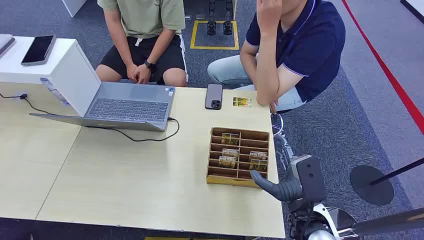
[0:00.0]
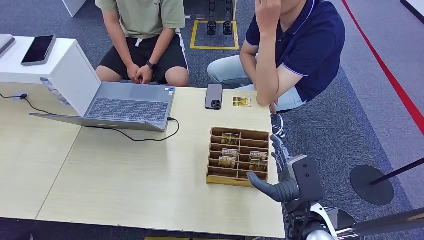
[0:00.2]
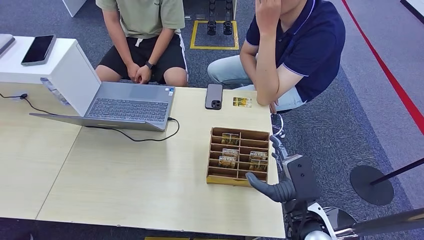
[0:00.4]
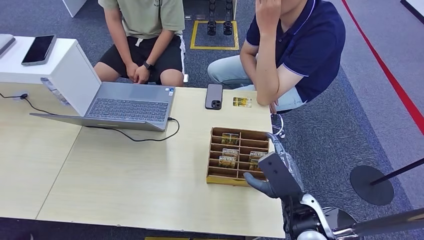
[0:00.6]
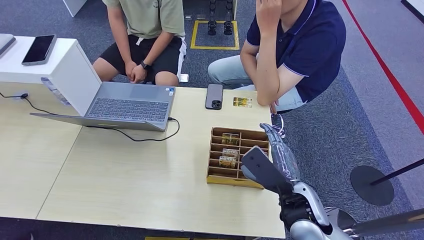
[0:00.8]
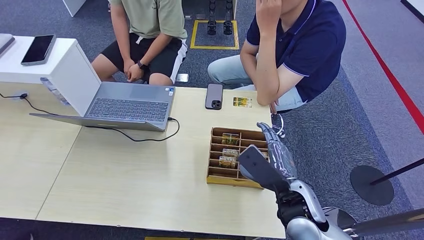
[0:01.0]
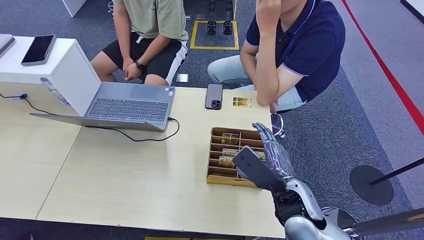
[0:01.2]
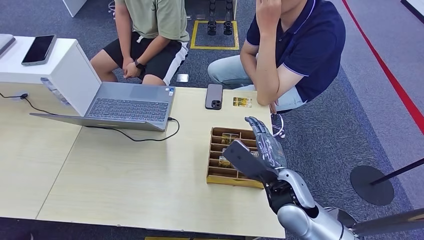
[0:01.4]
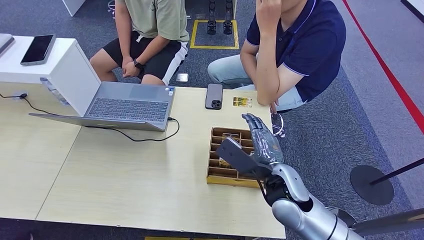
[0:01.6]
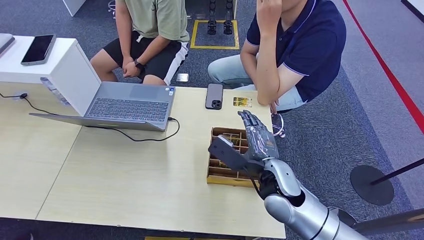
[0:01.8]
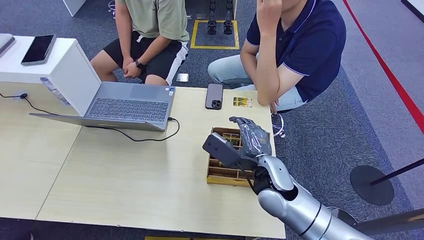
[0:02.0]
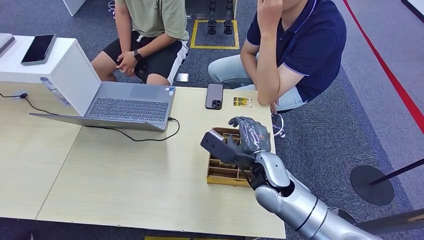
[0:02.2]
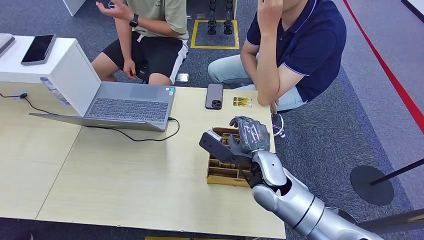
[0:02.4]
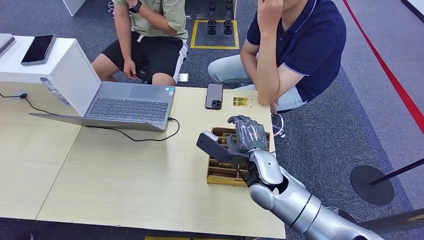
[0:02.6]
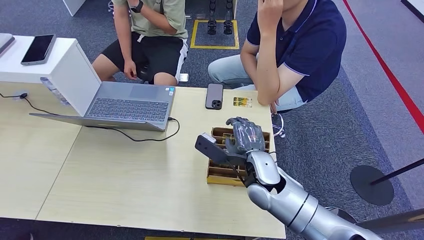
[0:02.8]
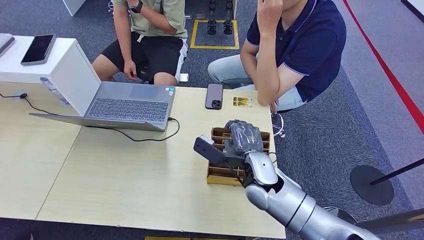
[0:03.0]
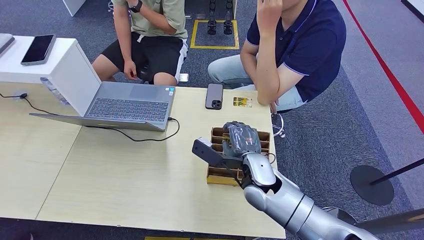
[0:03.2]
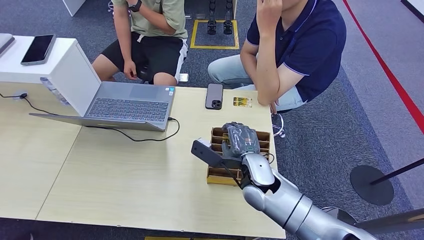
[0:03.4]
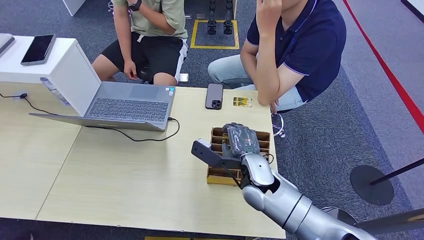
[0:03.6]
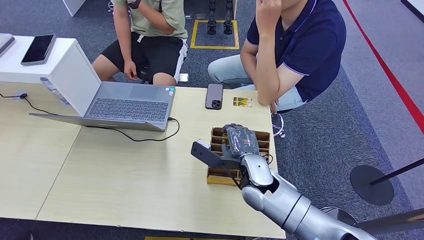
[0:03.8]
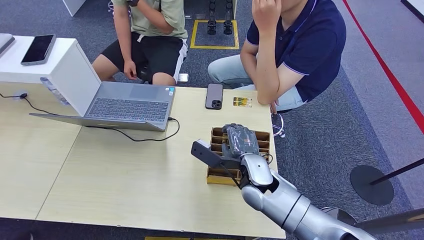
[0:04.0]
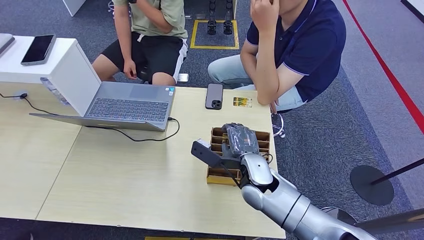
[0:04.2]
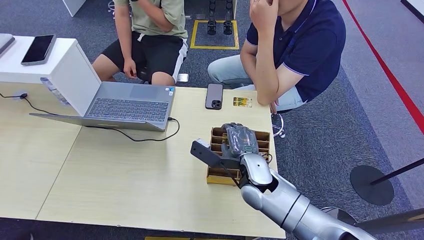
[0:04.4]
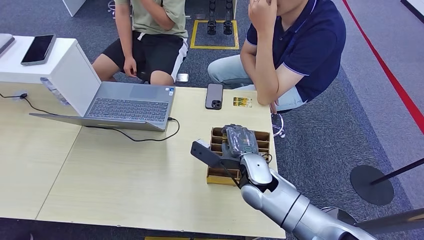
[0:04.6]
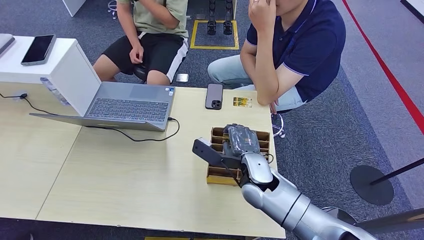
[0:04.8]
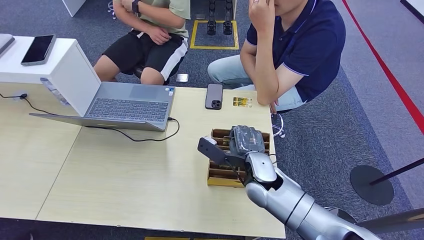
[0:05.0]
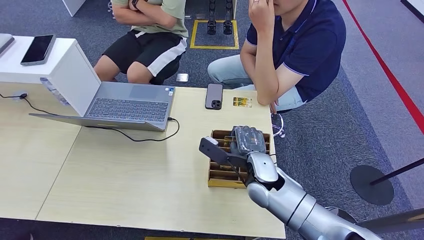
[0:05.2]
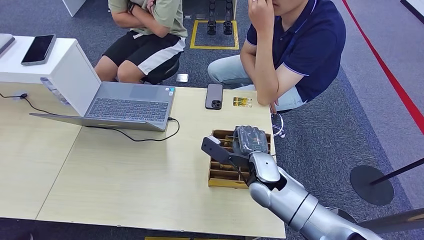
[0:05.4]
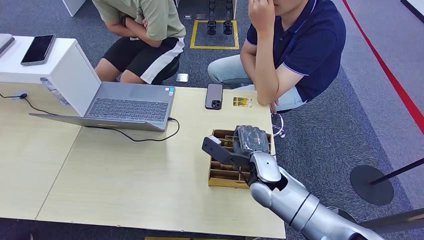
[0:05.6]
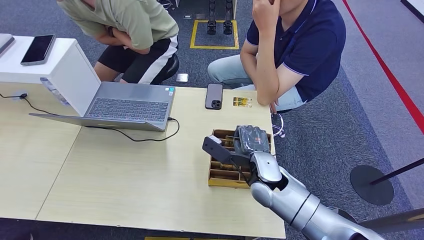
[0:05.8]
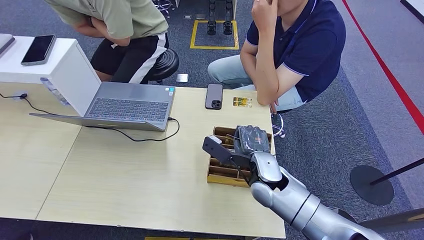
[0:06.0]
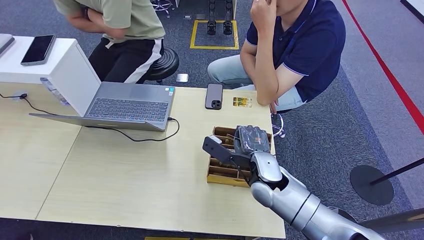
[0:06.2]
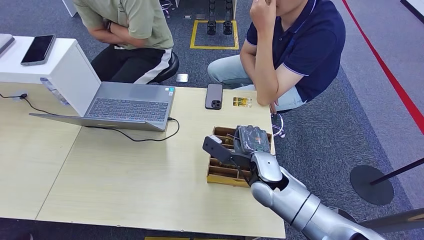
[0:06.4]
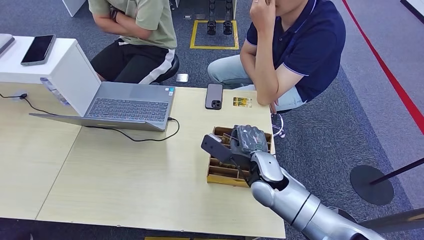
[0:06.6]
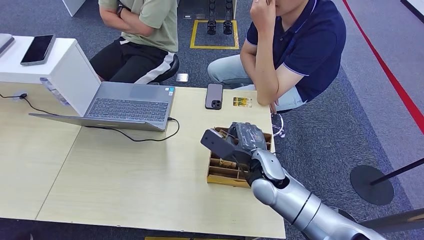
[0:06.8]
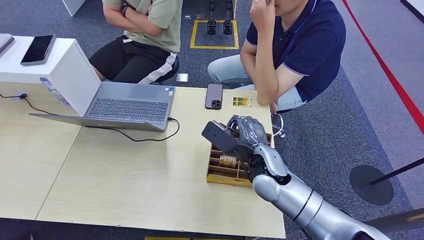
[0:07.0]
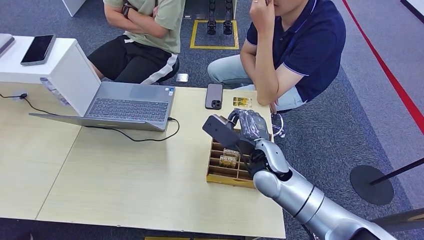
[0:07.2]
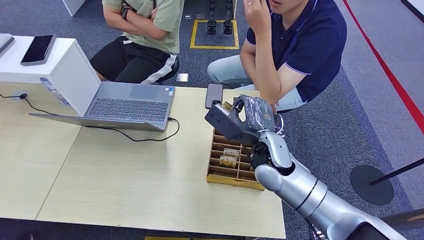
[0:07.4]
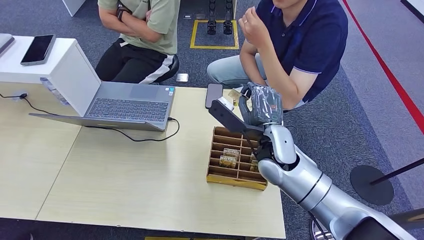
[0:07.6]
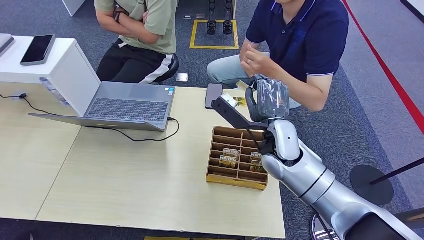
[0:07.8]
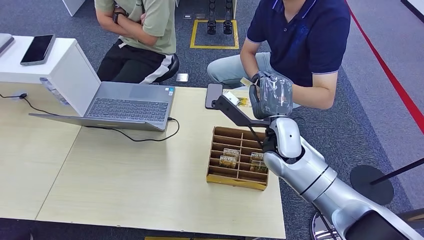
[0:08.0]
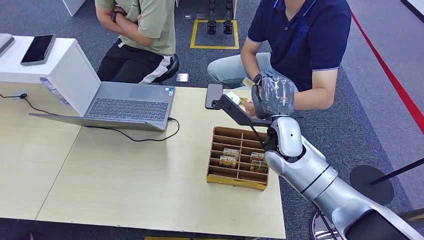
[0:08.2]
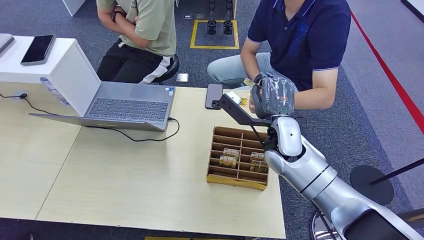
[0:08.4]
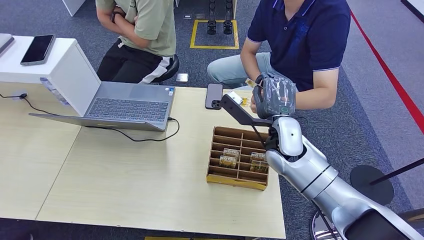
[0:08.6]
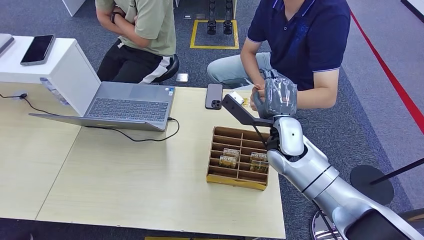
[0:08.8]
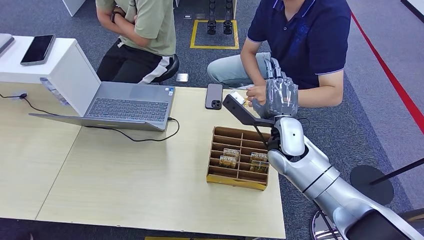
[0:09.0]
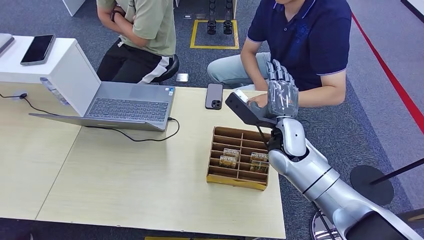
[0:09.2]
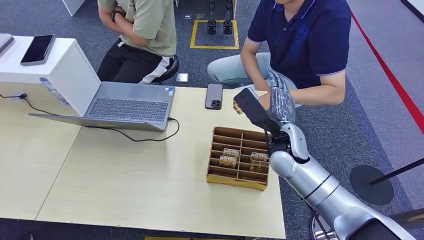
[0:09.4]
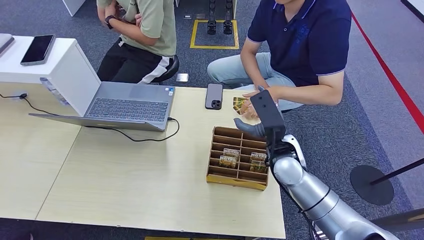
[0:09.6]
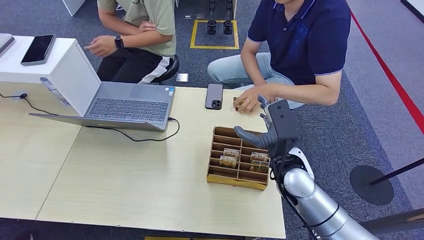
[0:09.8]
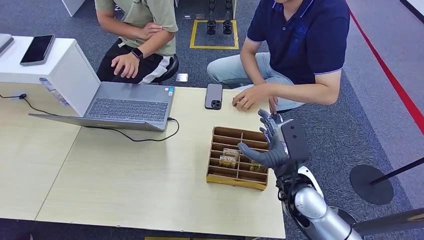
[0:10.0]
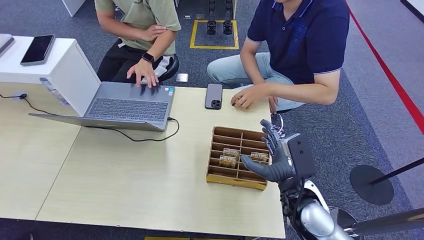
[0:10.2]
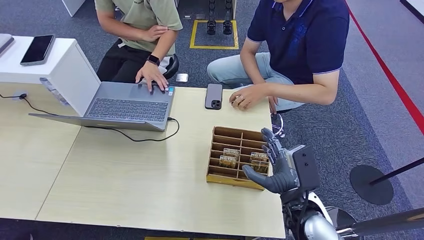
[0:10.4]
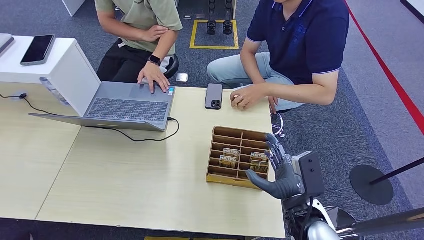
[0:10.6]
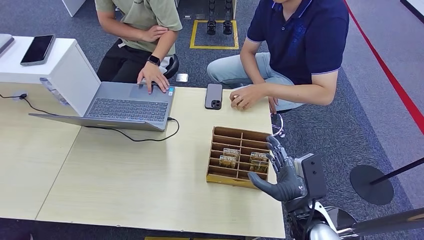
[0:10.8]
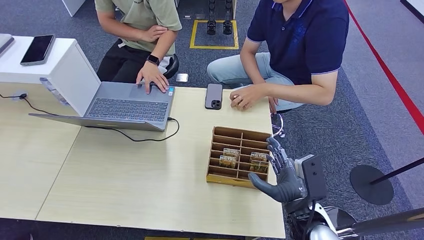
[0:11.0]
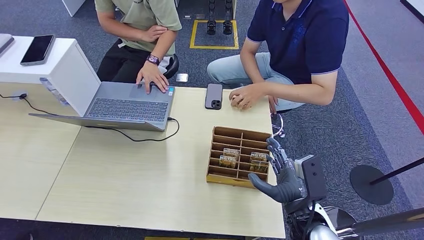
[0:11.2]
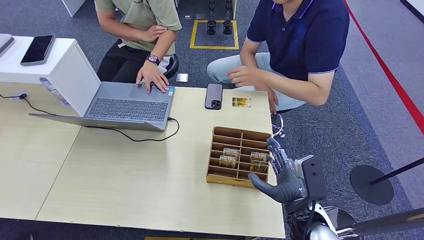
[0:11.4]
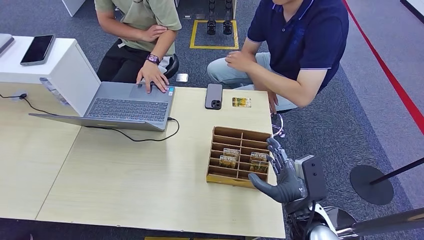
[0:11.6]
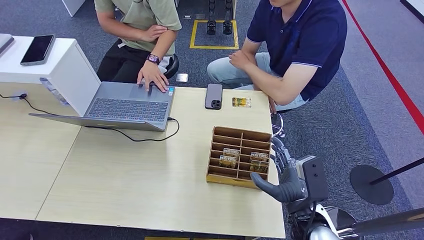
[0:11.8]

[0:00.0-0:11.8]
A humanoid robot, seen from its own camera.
Step, 0:00.0 to 0:07.6: Pick up the key card from the card box.
Step, 0:07.8 to 0:11.8: Hand the key card to the target.
0:01.4 to 0:03.0: The right hand travels to the left and forward by approximately 10 cm.
0:03.0 to 0:06.0: The hands make only small movements.
0:06.0 to 0:07.4: The right hand goes approximately 5 cm upward.
0:07.4 to 0:08.8: The right hand ends up about 5 cm from where it was.
0:08.8 to 0:10.4: The right hand goes roughly 15 cm backward.
0:10.4 to 0:11.8: There are only small adjustments of the hands.
